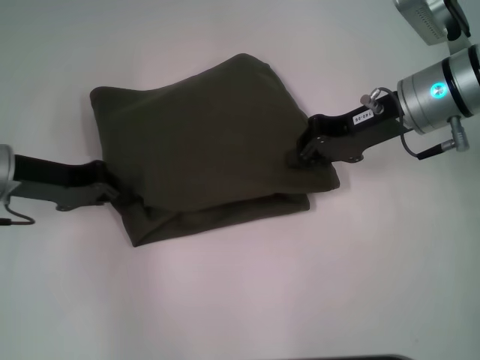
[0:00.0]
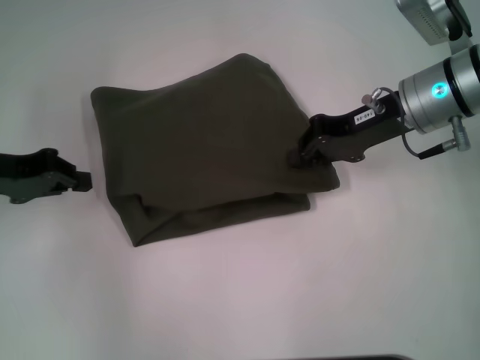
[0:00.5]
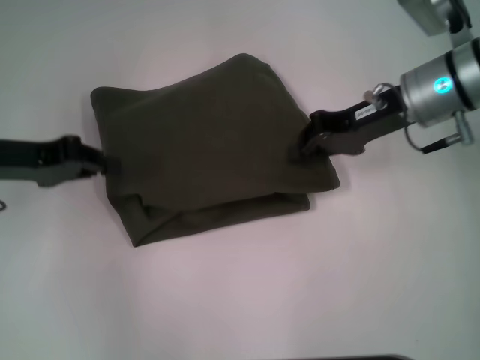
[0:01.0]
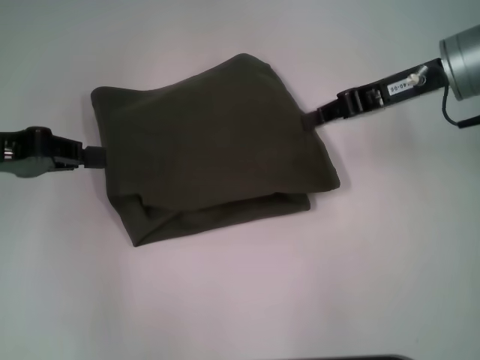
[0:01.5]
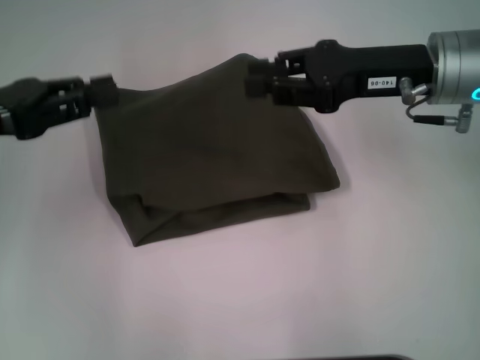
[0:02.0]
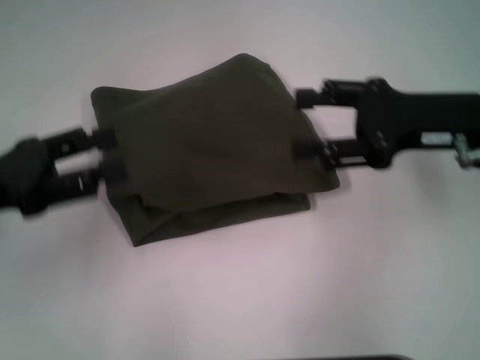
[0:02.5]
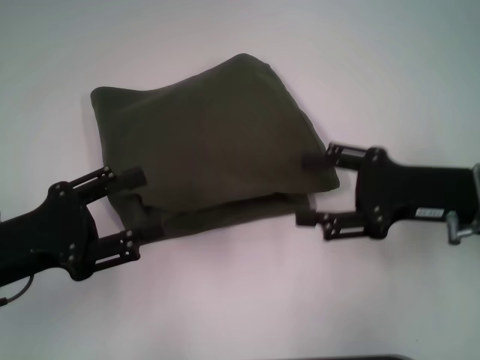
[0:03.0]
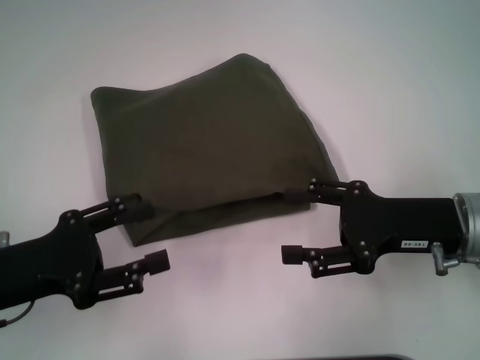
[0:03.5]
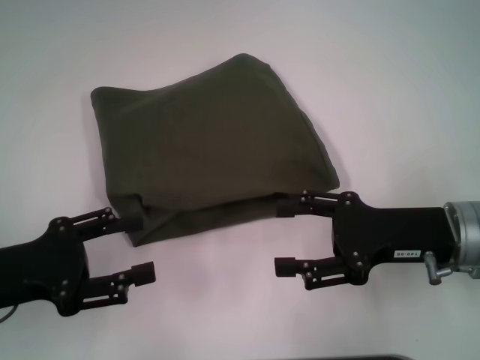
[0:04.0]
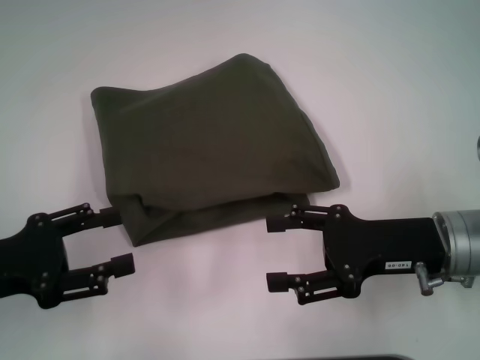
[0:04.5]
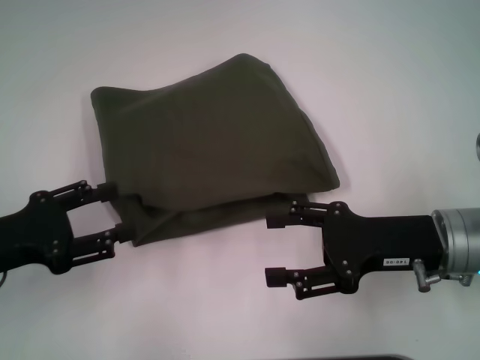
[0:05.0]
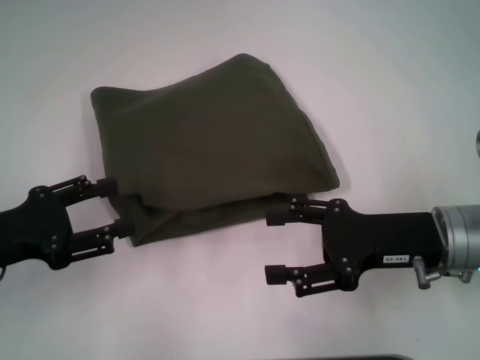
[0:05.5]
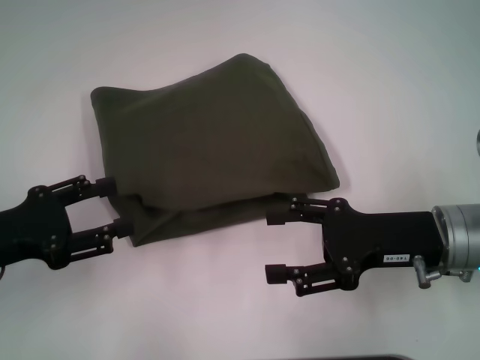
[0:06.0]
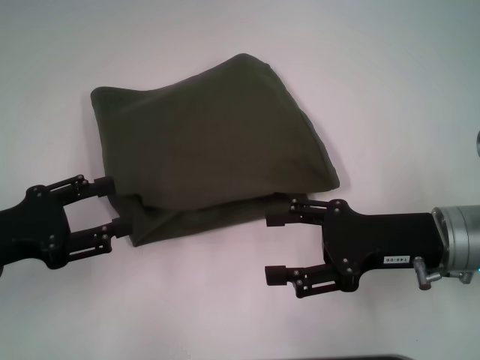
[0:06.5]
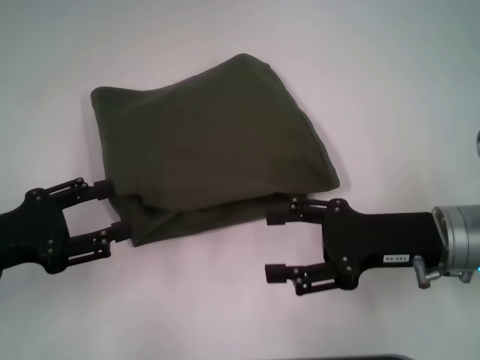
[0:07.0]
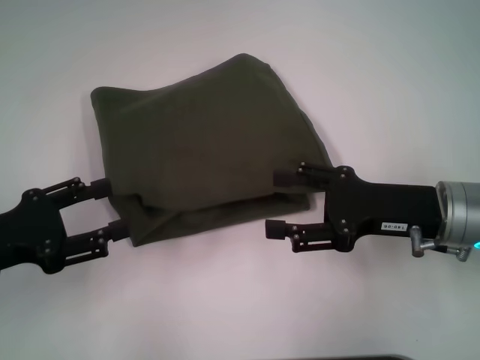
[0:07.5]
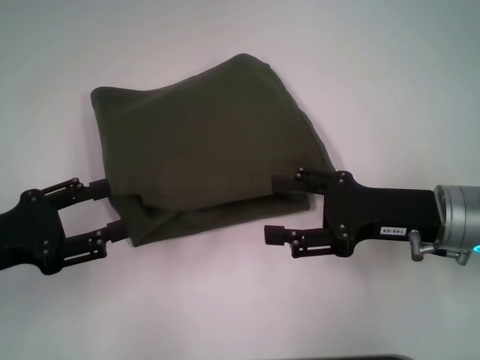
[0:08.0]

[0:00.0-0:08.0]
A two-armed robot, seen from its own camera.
0:00.0 to 0:02.0: The left gripper shifts approximately 5 cm upward.
0:02.0 to 0:04.0: Both grippers travel together backward and downward, approximately 15 cm. The right gripper opens its fingers. Meanwhile the left gripper opens.
0:04.0 to 0:08.0: The grippers stay close to where they were, moving slightly.

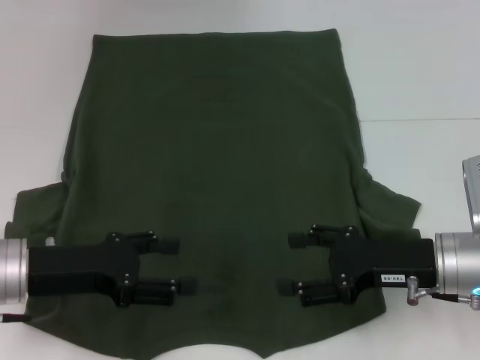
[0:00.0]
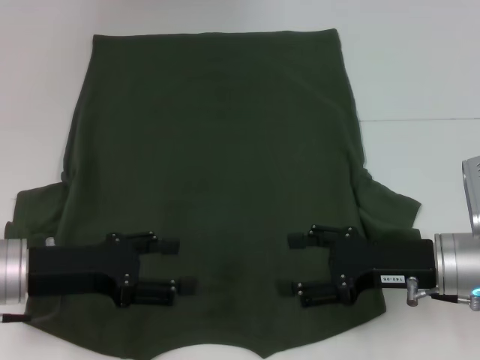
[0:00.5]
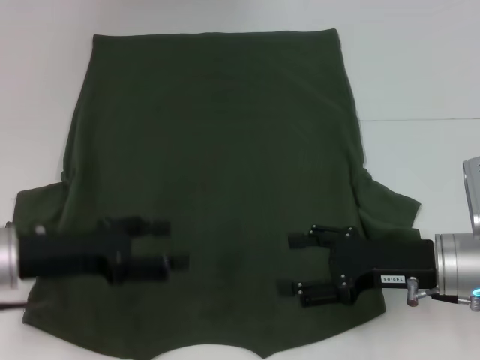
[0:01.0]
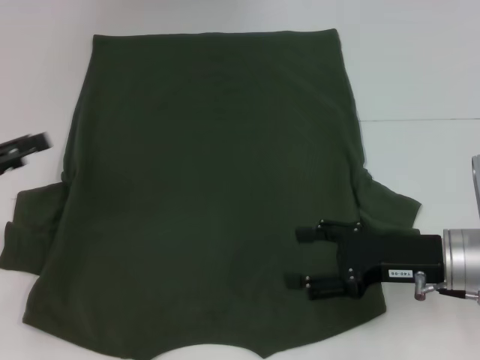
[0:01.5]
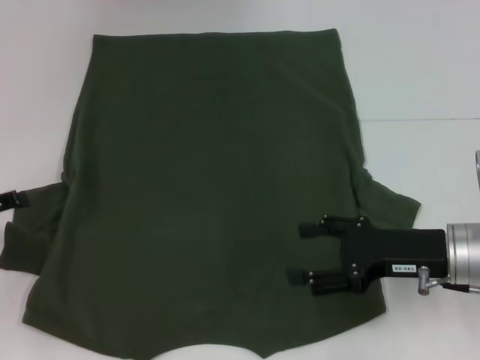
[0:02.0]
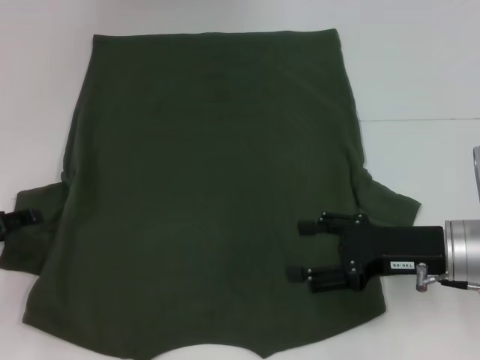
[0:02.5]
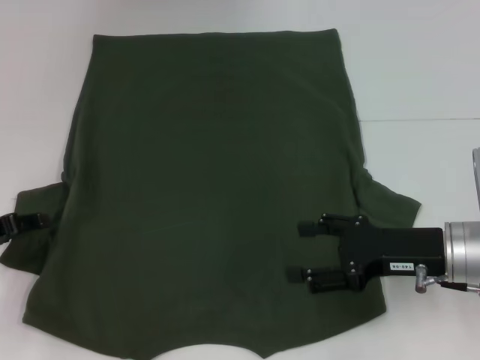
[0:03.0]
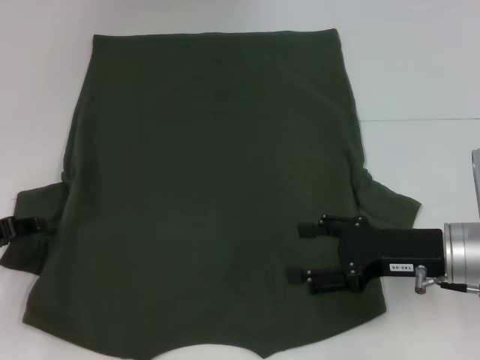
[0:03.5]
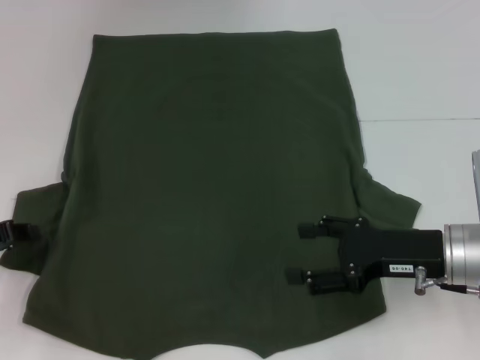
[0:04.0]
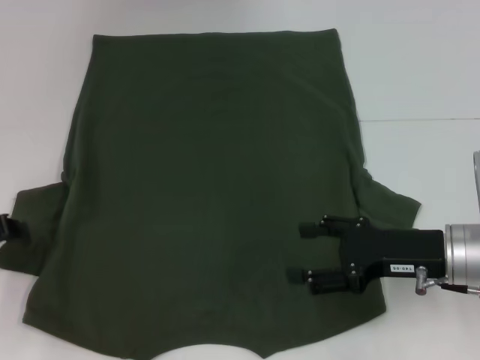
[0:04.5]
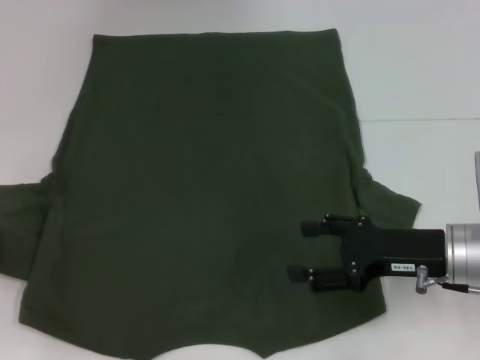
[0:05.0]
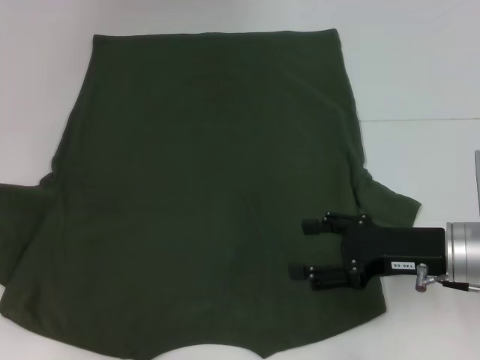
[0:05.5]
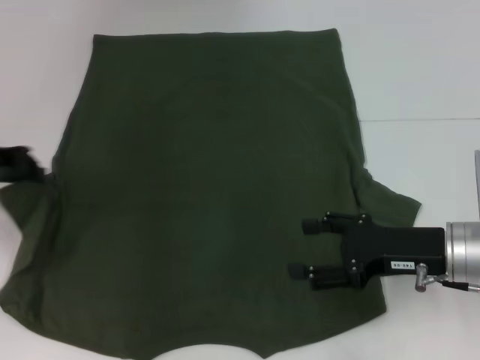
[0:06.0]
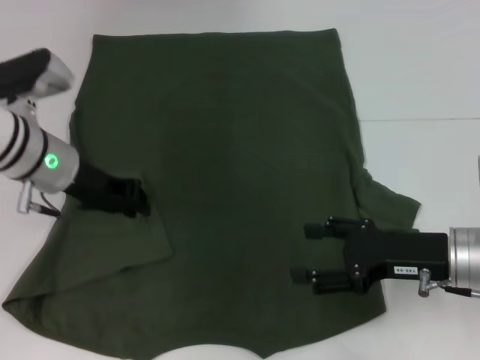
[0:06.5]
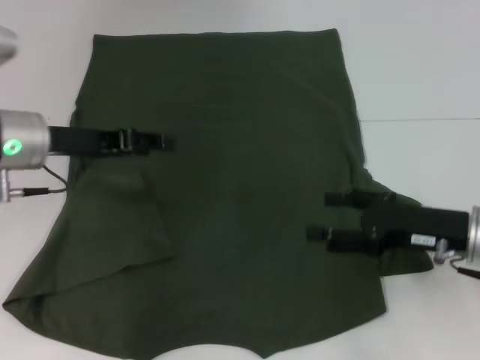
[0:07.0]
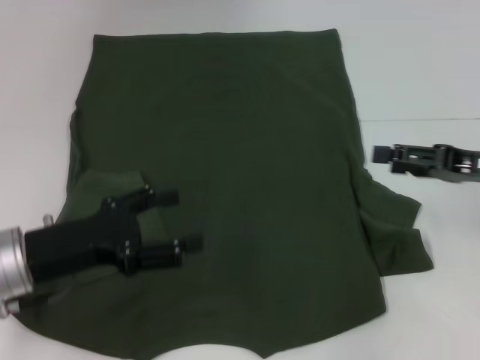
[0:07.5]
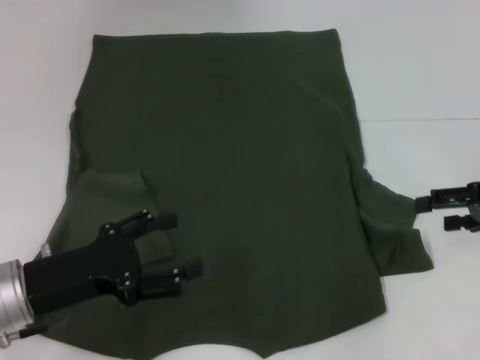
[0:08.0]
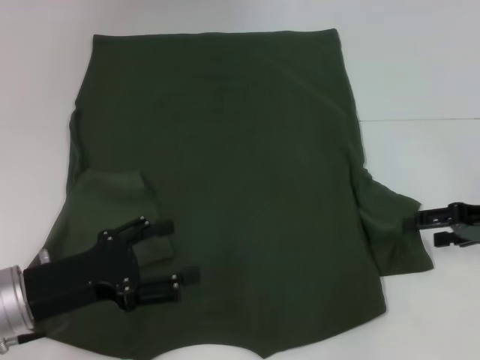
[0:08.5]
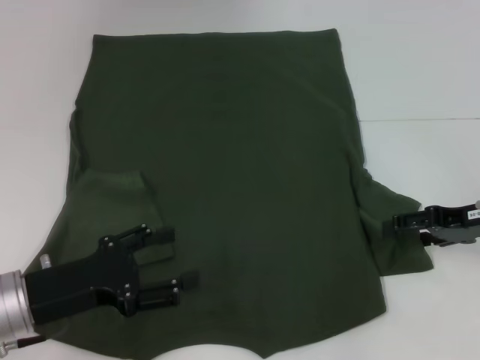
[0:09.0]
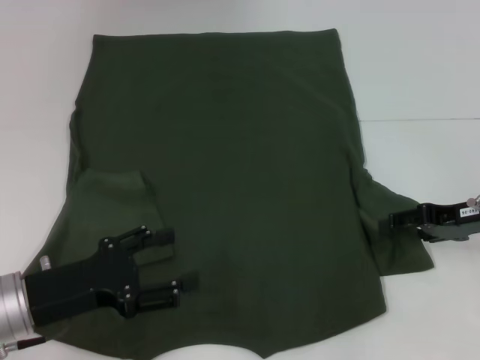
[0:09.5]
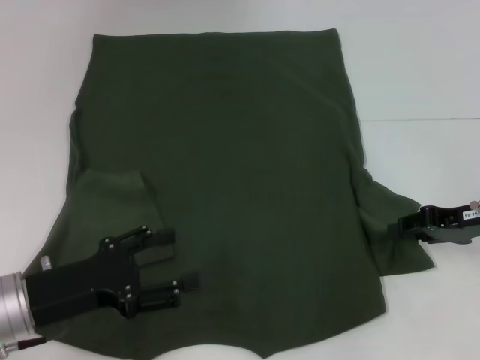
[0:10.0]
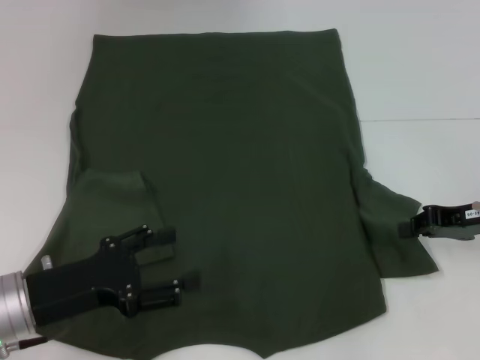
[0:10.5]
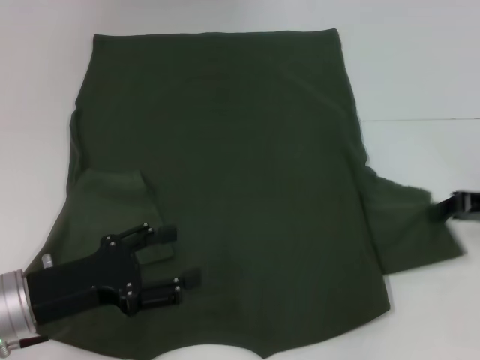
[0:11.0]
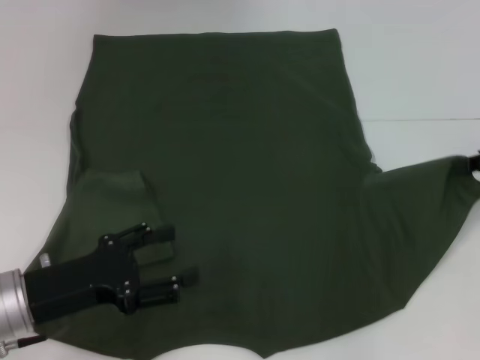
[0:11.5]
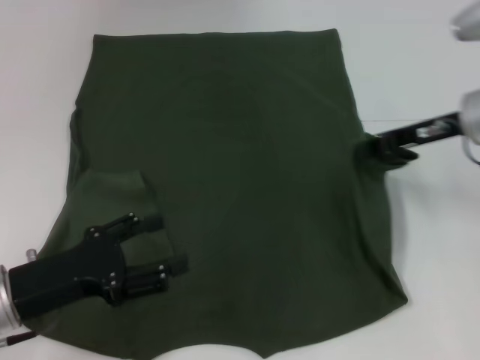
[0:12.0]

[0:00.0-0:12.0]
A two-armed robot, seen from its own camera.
Step, 0:00.0 to 0:07.5: Fold the bottom left sleeve with your left hand.
0:00.0 to 0:02.0: The left gripper shifts roughly 15 cm to the left.
0:04.0 to 0:06.0: The left gripper moves upward and forward, roughly 15 cm, and closes.
0:06.0 to 0:08.0: The right gripper shifts approximately 15 cm to the right and upward. Meanwhile the left gripper travels backward, downward and to the right by roughly 20 cm, and opens up.
0:08.0 to 0:10.0: The right gripper shifts by roughly 5 cm, and closes up.
0:10.0 to 0:12.0: The right gripper heads upward, forward and to the left, covering approximately 10 cm, and closes.

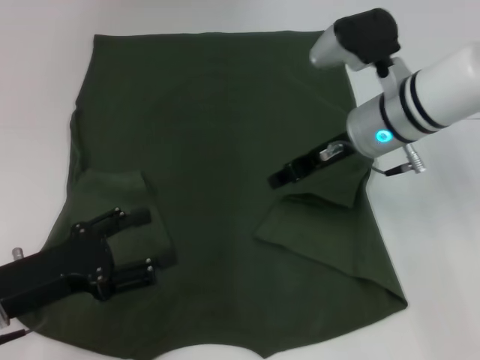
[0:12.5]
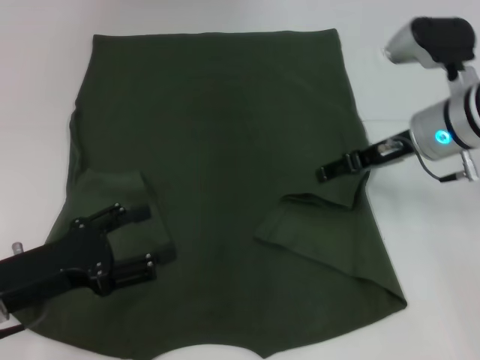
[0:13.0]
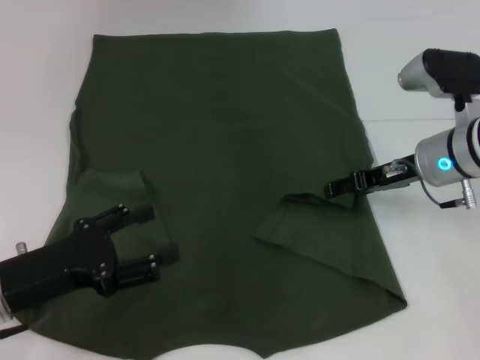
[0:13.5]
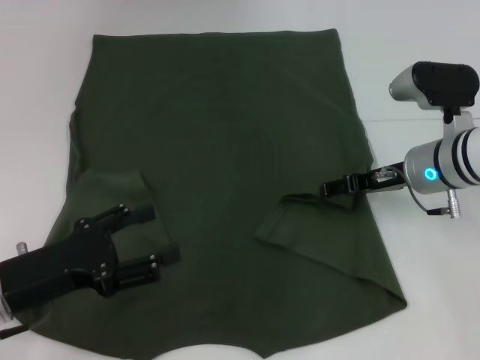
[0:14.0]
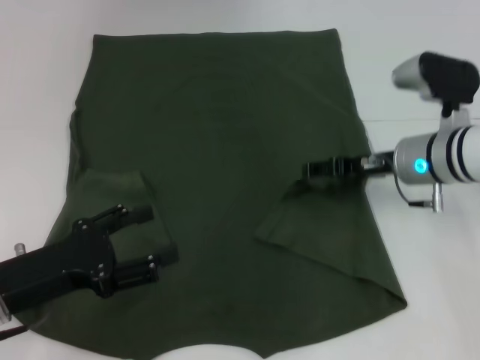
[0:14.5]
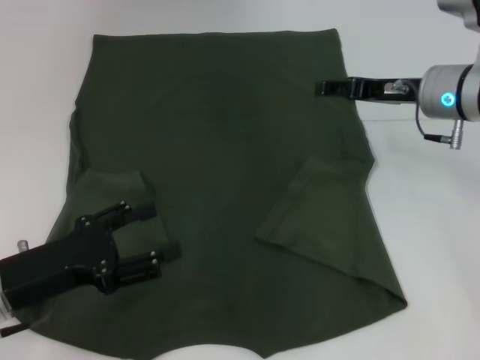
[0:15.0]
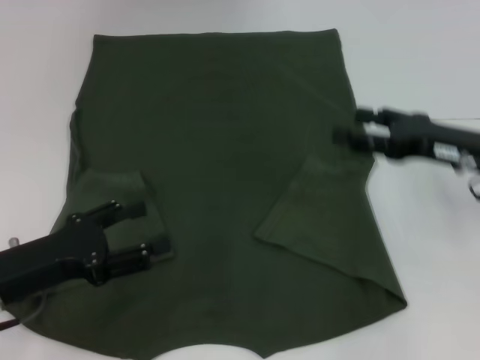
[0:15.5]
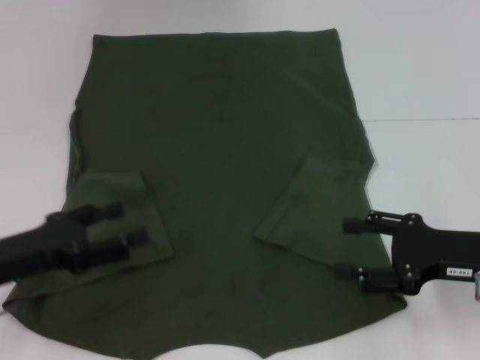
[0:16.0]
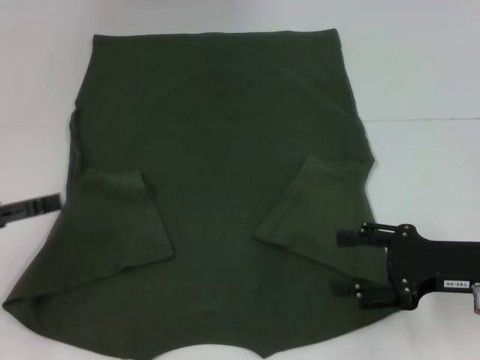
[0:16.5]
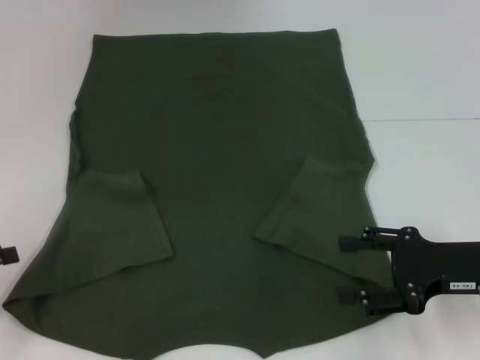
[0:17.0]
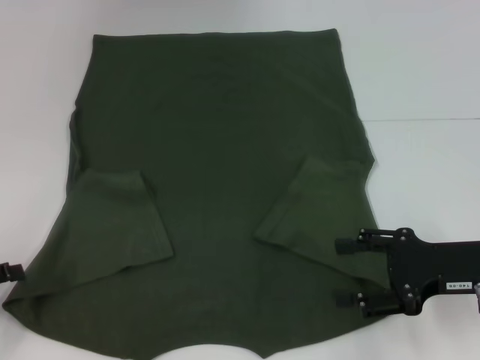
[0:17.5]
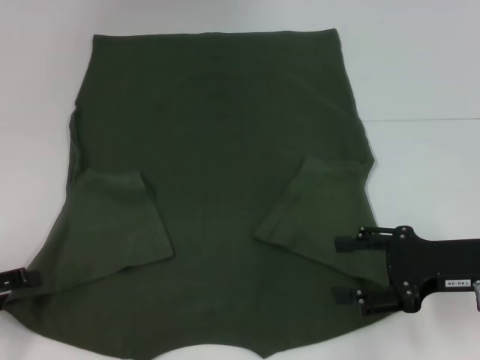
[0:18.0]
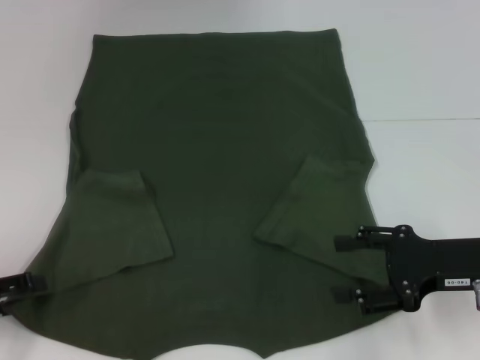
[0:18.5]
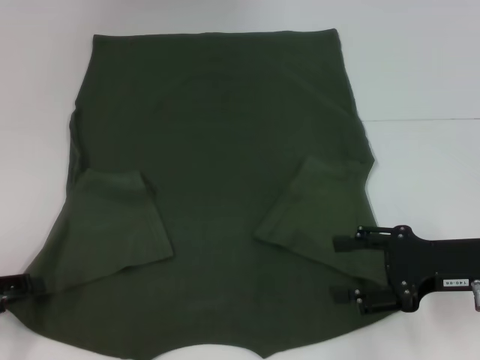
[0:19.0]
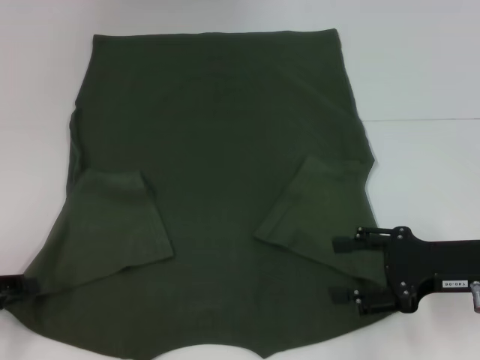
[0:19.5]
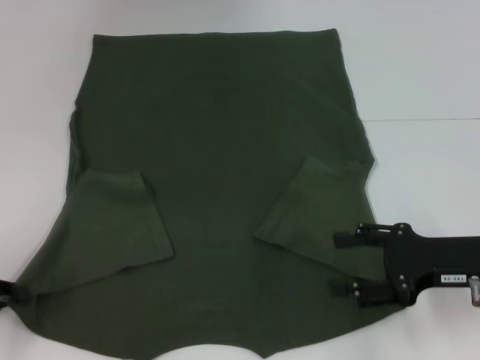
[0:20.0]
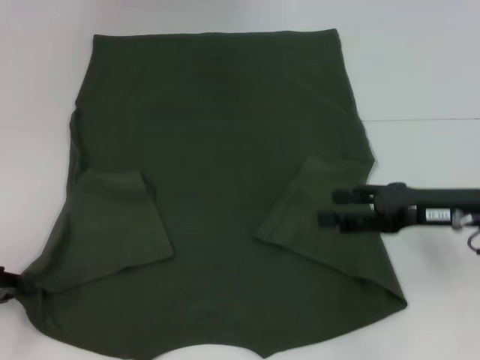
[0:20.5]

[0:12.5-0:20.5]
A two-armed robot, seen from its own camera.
Step, 0:12.5 to 0:16.0: Fold the bottom right sleeve with your right hand.
0:12.5 to 0:14.5: The right gripper heads to the right and downward, covering about 10 cm, and opens its fingers.
0:14.5 to 0:16.5: The right gripper shifts some 15 cm backward and to the right; the left gripper heads to the left, covering approximately 10 cm.
0:16.5 to 0:18.5: The left gripper shifts some 5 cm downward.
0:18.5 to 0:20.5: The left gripper closes its fingers.
